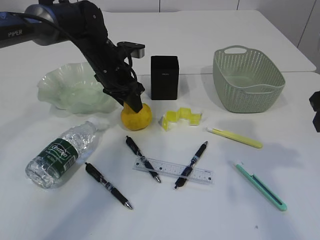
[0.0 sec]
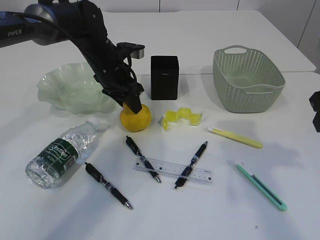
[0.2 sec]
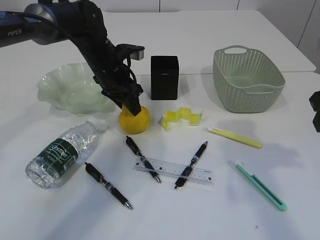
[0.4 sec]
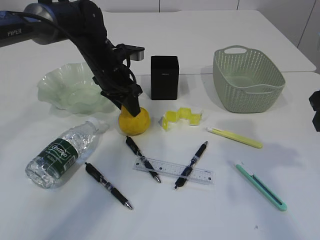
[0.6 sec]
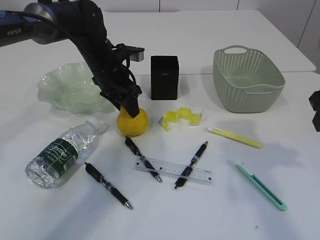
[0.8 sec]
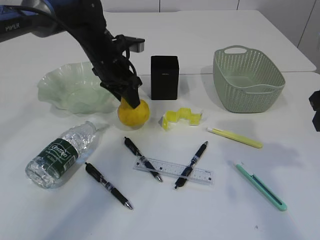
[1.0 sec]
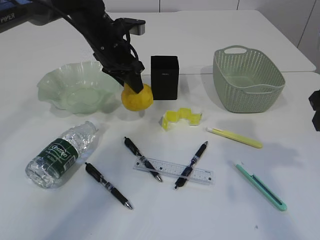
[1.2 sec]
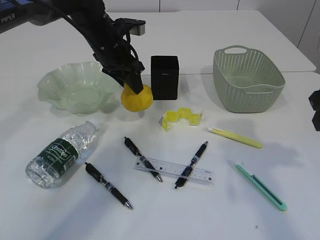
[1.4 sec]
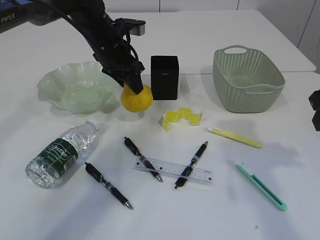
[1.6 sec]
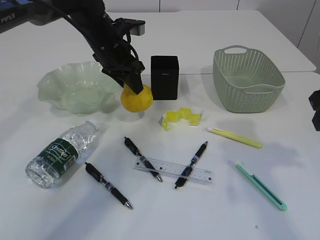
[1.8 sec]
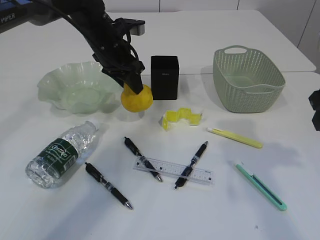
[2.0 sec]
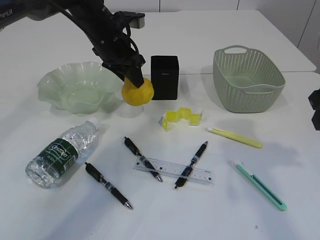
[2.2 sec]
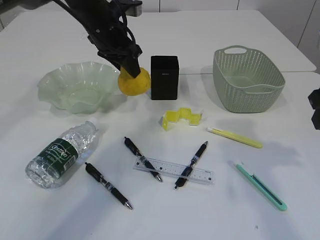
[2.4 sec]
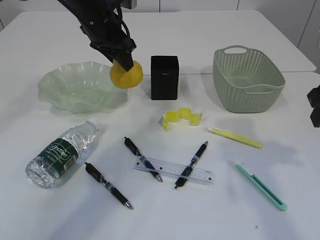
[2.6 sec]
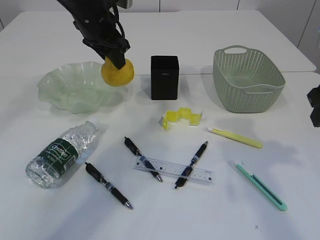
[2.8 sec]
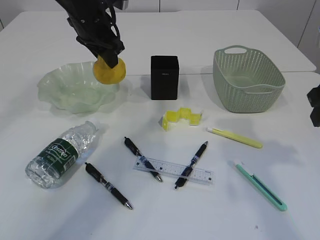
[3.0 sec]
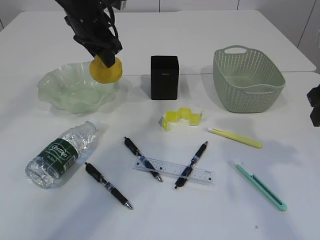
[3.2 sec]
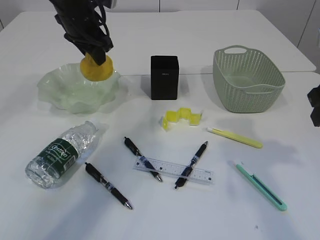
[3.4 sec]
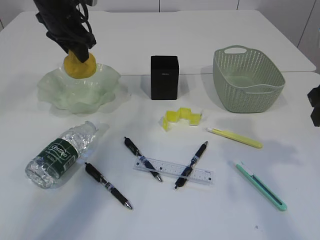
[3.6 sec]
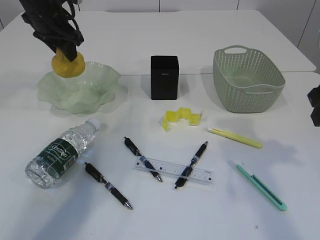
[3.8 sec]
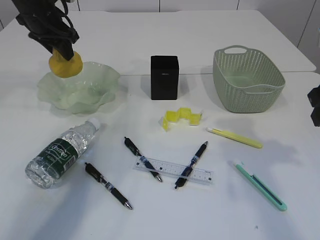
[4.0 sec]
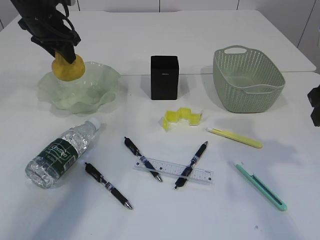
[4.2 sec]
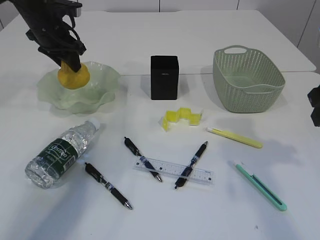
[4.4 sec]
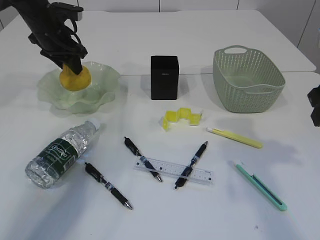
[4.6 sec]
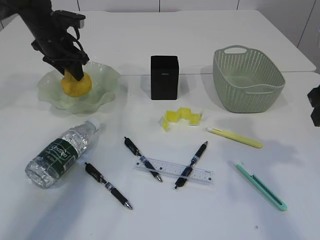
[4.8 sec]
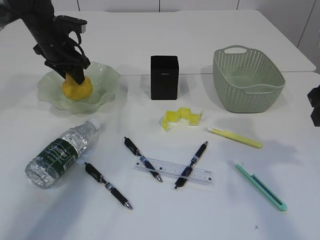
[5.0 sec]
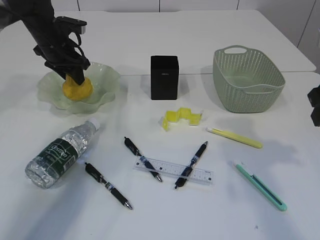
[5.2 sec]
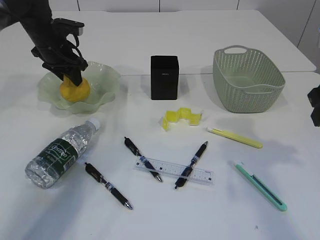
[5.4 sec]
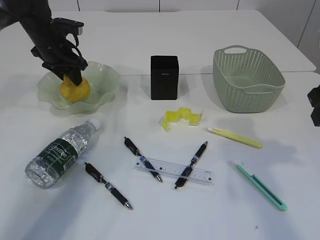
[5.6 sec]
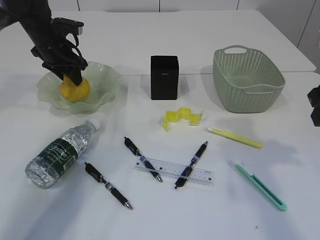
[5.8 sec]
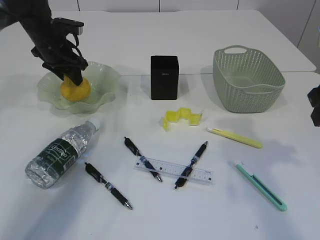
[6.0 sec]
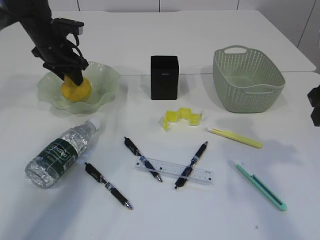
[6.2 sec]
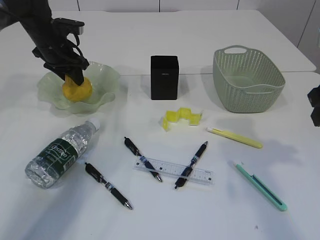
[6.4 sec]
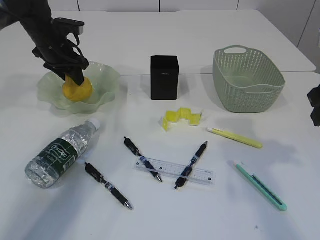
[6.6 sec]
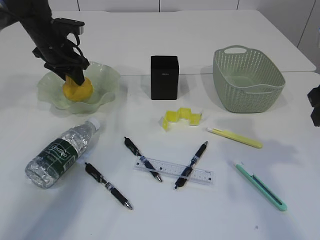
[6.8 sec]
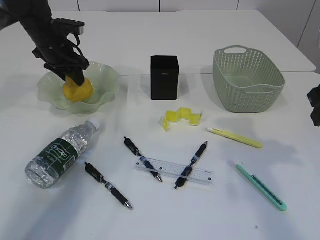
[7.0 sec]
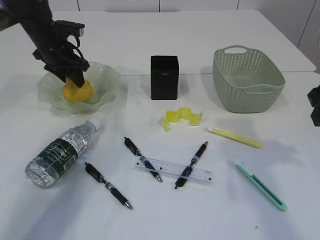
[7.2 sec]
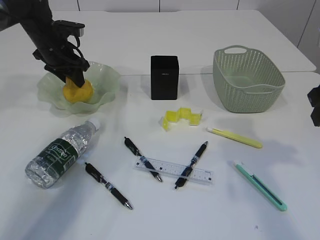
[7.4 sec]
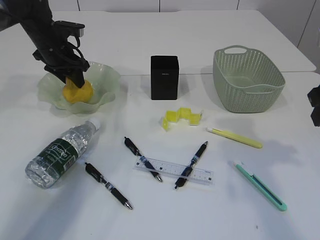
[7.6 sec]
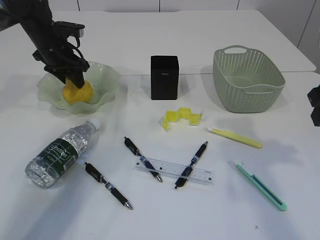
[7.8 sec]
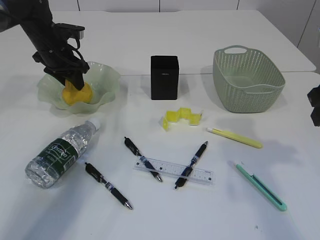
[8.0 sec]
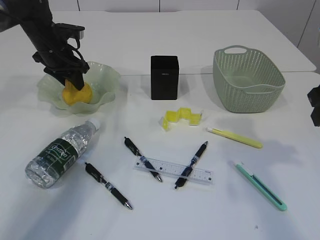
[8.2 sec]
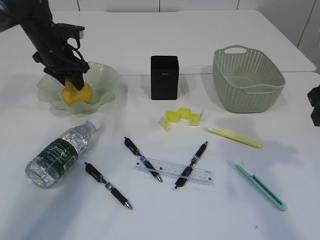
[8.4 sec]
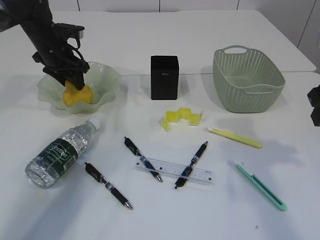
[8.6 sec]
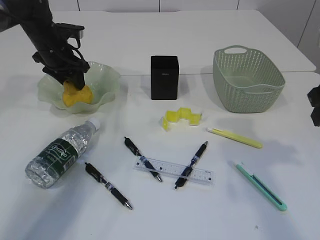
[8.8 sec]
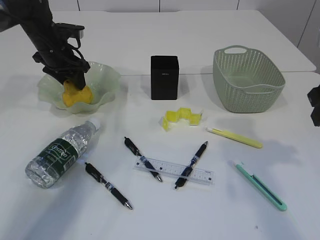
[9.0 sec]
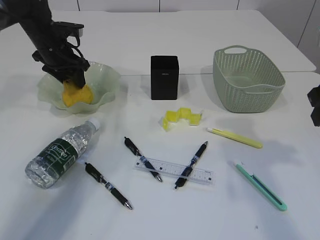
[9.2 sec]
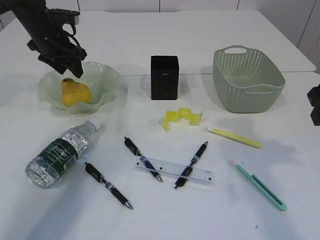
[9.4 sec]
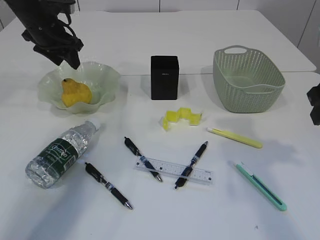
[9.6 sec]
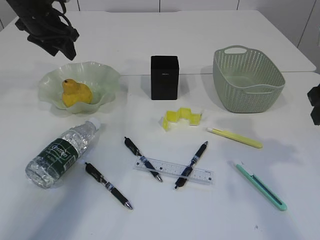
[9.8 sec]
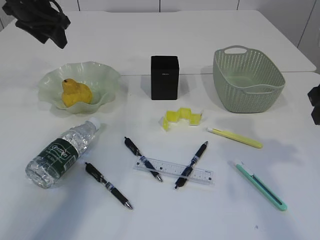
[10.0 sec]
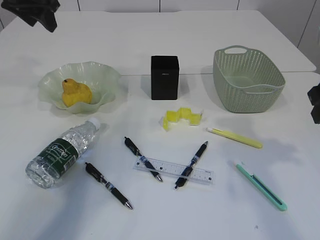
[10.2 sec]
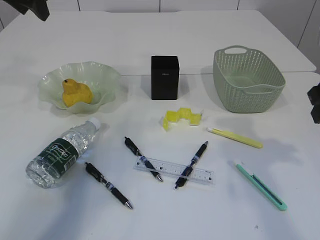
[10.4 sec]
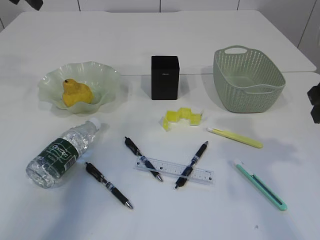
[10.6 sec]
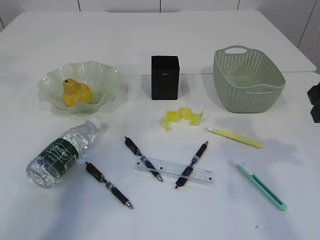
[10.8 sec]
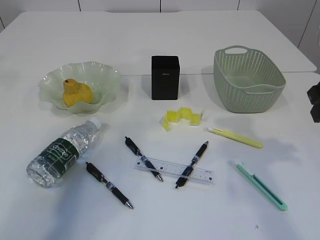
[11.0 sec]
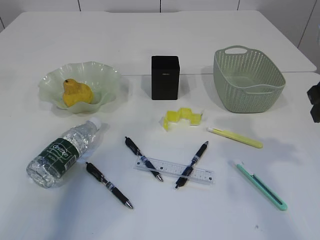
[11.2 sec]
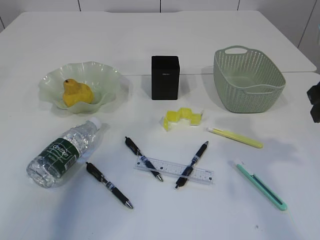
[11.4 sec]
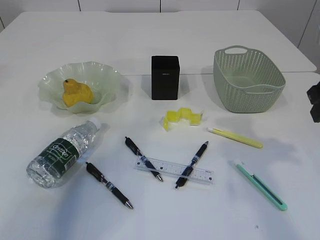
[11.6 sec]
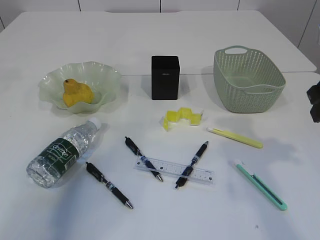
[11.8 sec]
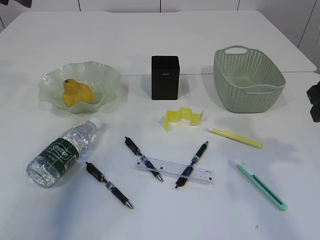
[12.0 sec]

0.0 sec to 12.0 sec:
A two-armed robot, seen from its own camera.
Step, 1.4 sec to 9.6 sec: Place the pear in the plate.
0.0 sec to 1.6 sec: The grippers make only small movements.
1.6 sec to 3.0 sec: The left gripper heads upward, covering some 5 cm.
3.0 sec to 4.4 sec: The left gripper travels to the left by roughly 10 cm.
4.4 sec to 6.0 sec: The grippers move only a little.
6.0 sec to 9.0 sec: Both grippers stay about where they are.
9.0 sec to 10.4 sec: The left gripper heads upward, covering approximately 15 cm.
10.4 sec to 12.0 sec: The left gripper goes upward and returns, approximately 10 cm each way.

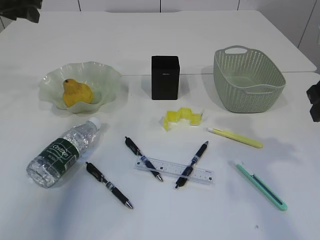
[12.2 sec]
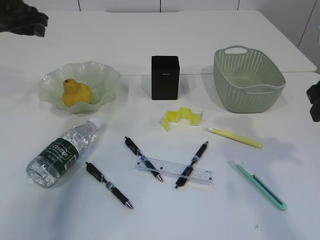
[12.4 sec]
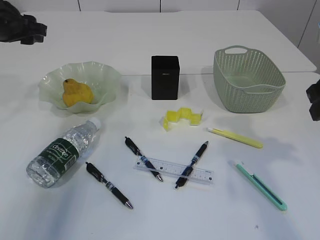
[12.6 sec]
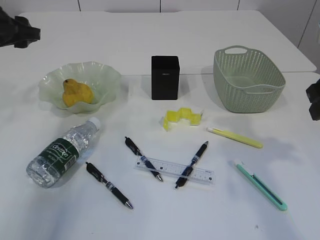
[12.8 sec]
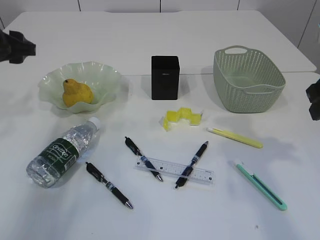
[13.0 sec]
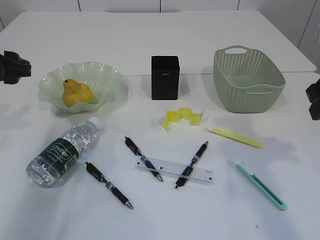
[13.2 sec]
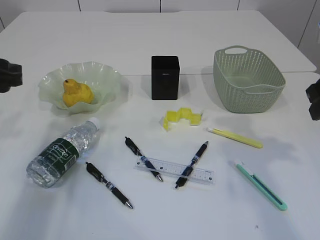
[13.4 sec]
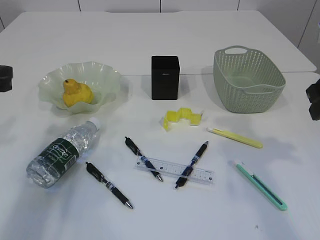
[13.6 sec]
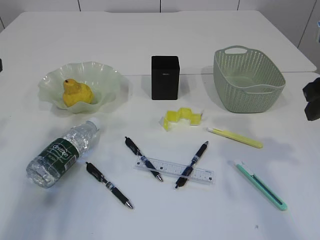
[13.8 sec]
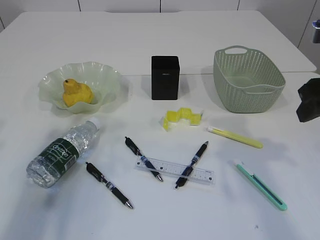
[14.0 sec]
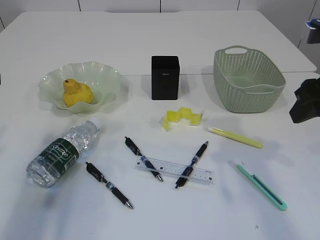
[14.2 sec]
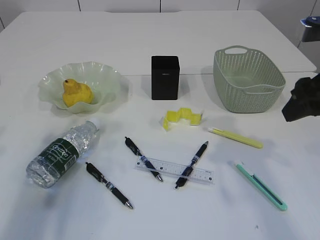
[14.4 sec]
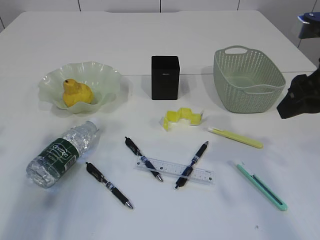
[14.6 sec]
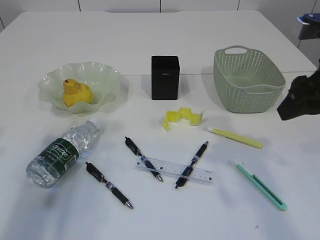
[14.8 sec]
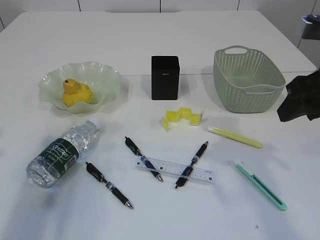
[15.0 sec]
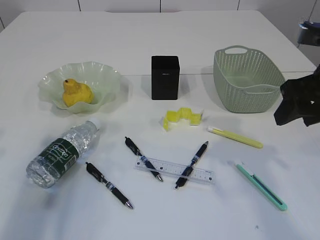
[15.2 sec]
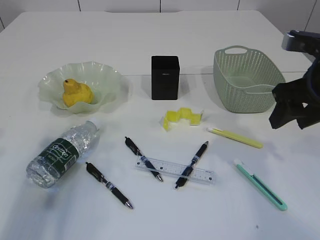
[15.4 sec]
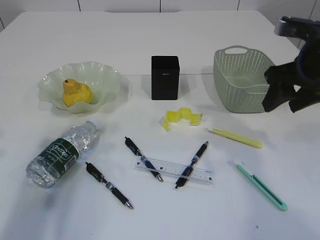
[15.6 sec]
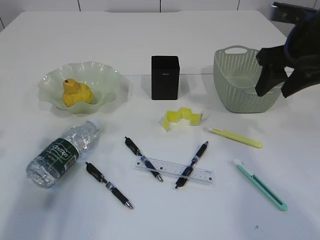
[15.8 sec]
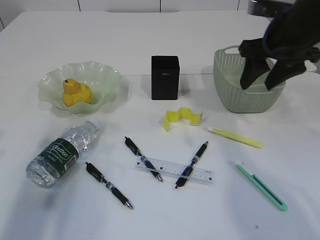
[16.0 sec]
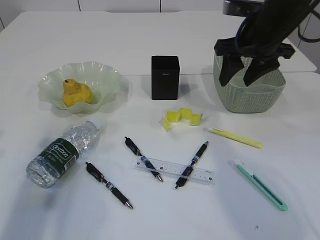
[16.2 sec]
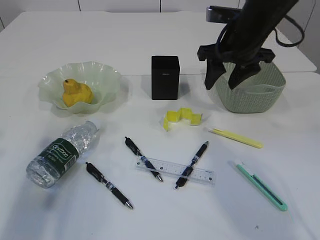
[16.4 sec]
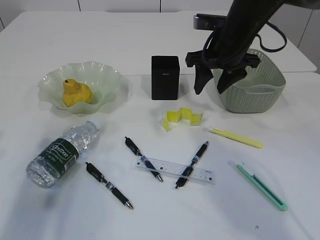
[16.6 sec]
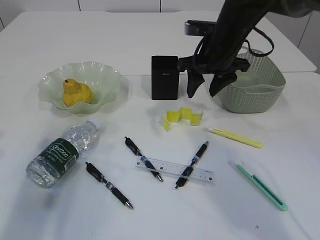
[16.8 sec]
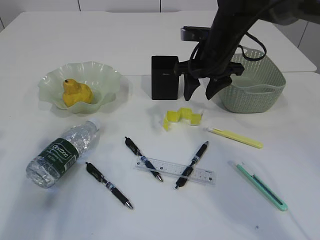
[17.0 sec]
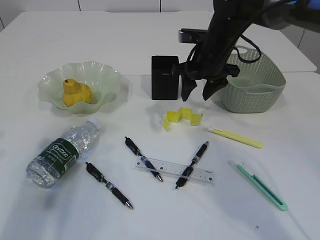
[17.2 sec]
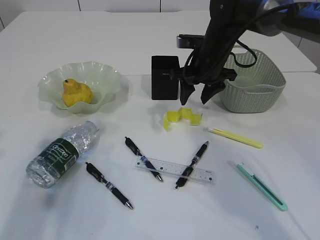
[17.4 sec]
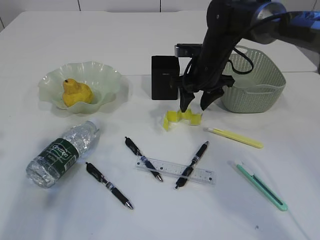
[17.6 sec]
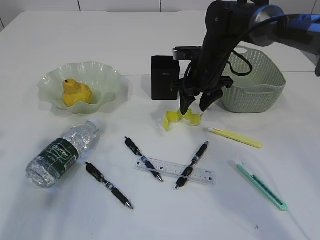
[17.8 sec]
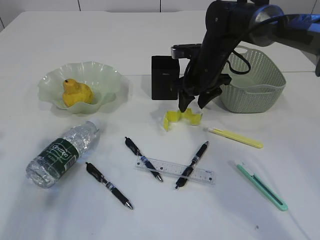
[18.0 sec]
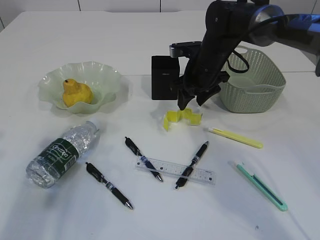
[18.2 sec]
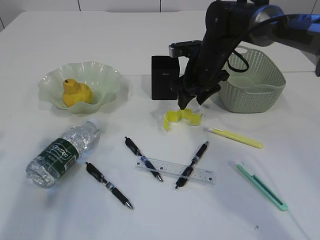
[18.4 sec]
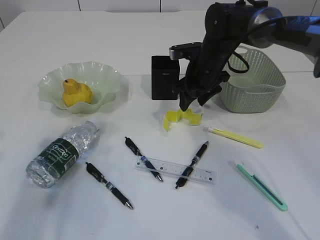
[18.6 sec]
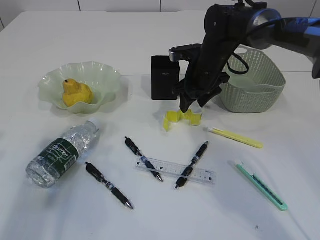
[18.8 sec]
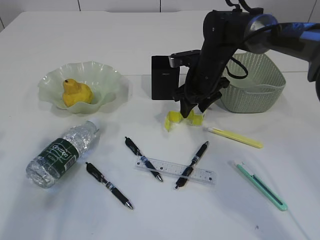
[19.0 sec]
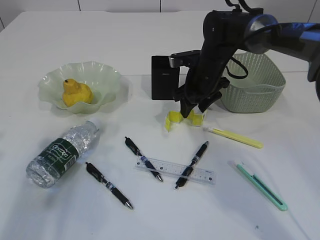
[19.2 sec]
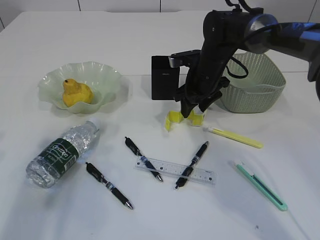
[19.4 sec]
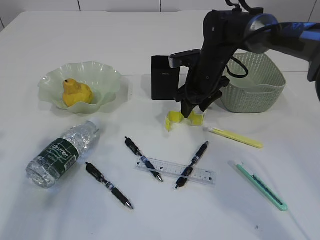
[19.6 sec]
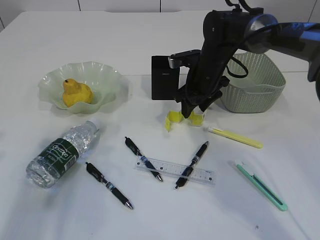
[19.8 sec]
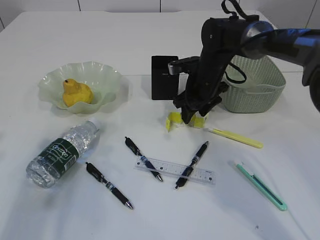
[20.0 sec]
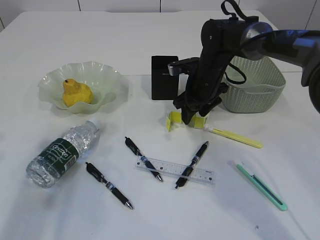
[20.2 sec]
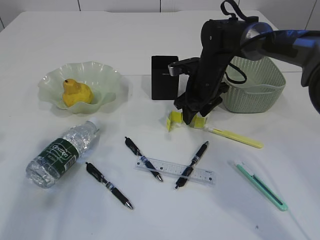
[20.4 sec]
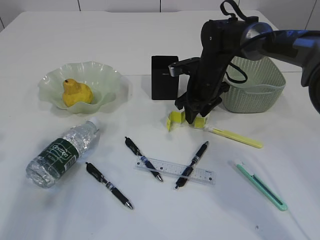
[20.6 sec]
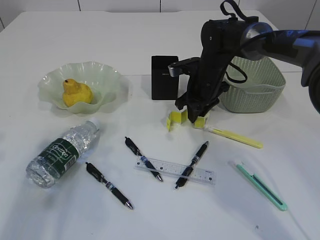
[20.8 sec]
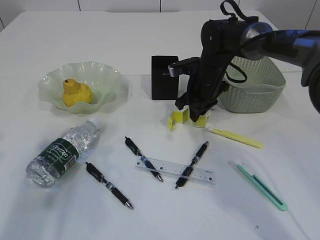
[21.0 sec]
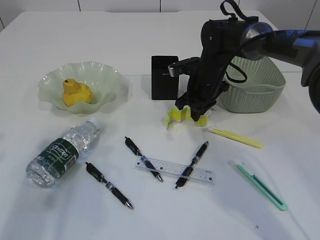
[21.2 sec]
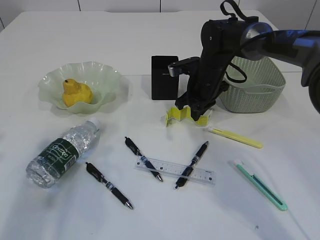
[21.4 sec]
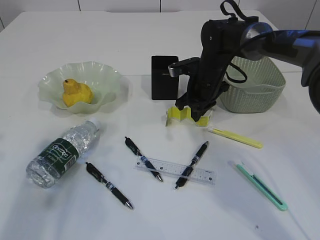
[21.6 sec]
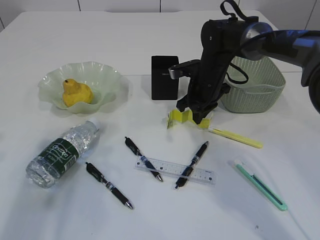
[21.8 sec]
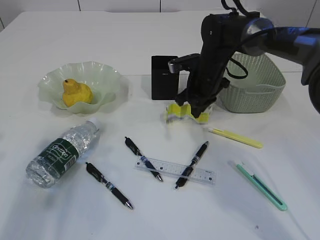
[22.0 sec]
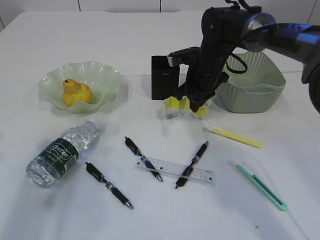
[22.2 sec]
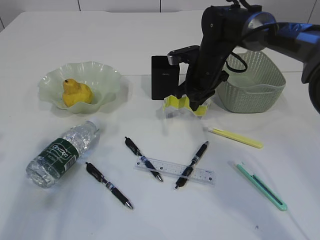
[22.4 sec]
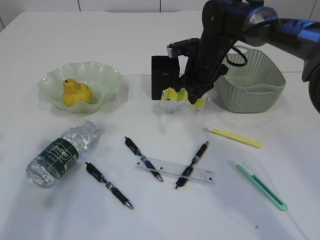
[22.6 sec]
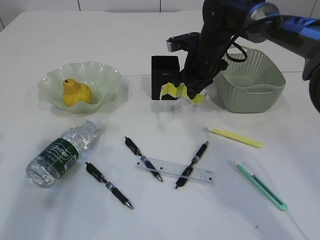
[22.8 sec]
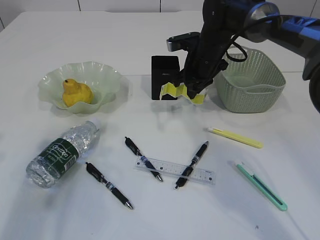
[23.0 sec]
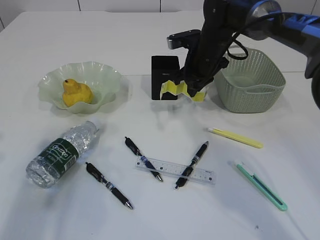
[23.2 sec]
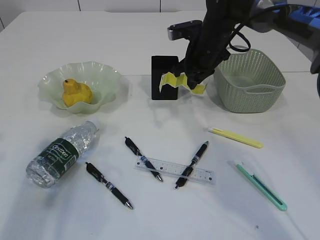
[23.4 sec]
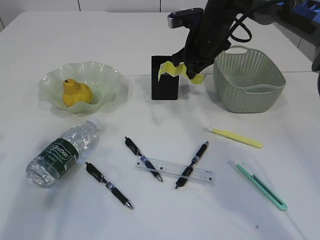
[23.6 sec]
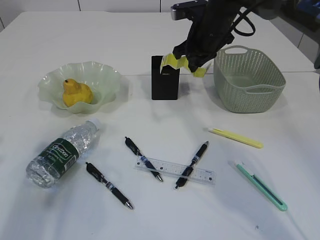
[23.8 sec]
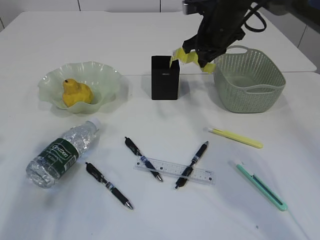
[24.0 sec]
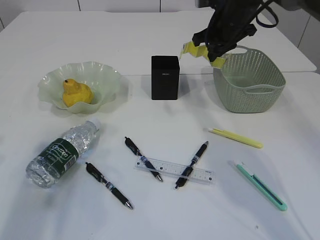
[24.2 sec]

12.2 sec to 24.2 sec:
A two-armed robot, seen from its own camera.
Step, 12.2 sec to 22.2 sec: Pick up the waste paper.
12.2 sec to 13.8 sec: The left gripper heads backward, covering approximately 20 cm.
13.8 sec to 15.2 sec: The grippers move only a little.
15.2 sec to 16.6 sec: The right gripper goes some 20 cm forward and to the left.
16.6 sec to 18.2 sec: The right gripper goes roughly 5 cm downward.
18.2 sec to 19.8 sec: The grippers make only small movements.
19.8 sec to 21.2 sec: The right gripper closes.
21.2 sec to 22.6 sec: The grippers stay close to where they were, moving slightly.
22.6 sec to 24.2 sec: The right gripper heads upward, covering roughly 10 cm.
